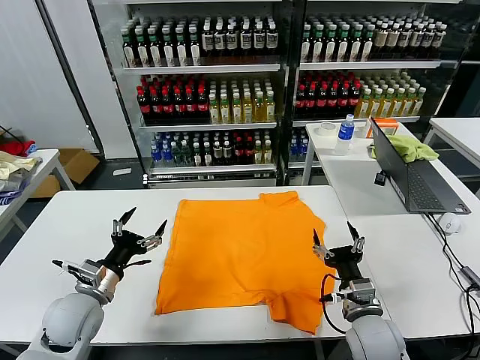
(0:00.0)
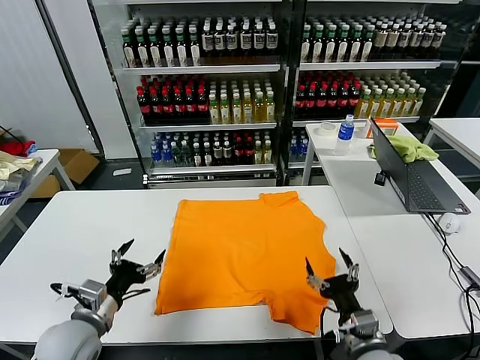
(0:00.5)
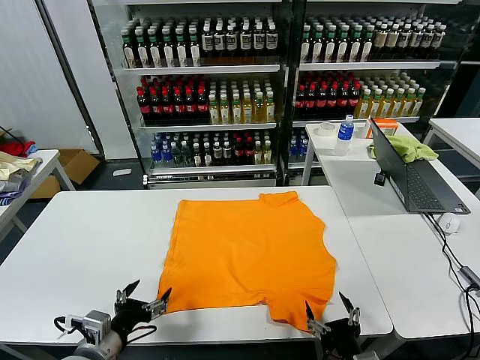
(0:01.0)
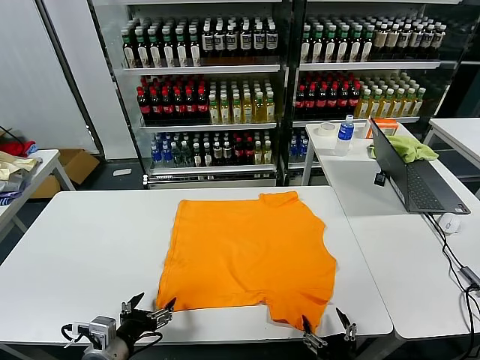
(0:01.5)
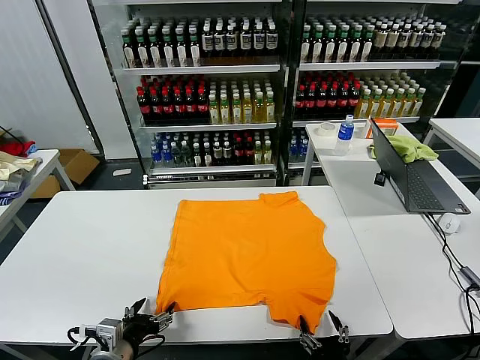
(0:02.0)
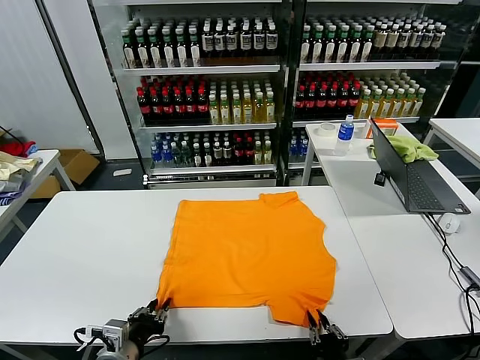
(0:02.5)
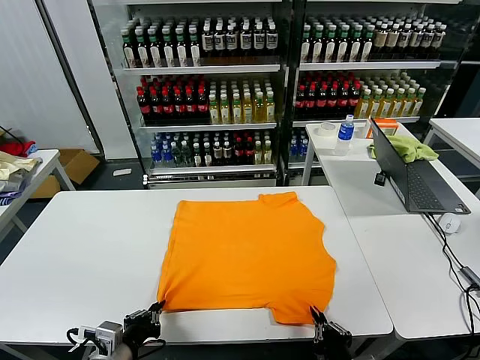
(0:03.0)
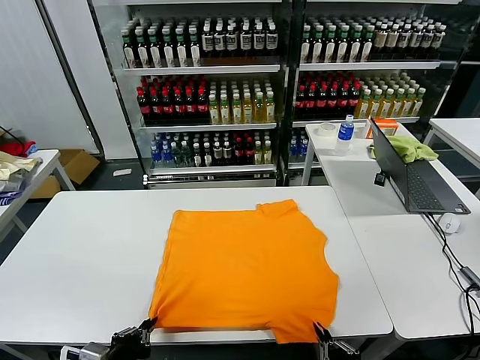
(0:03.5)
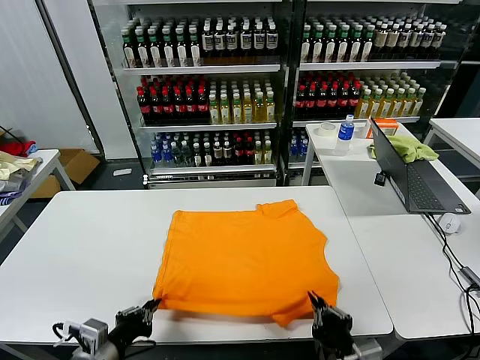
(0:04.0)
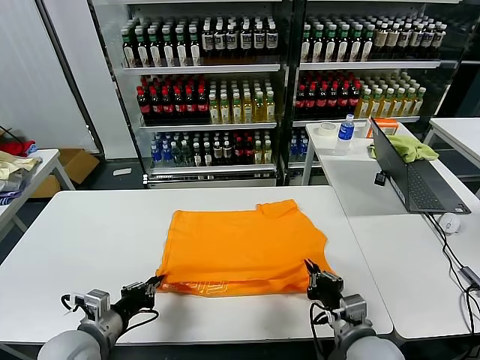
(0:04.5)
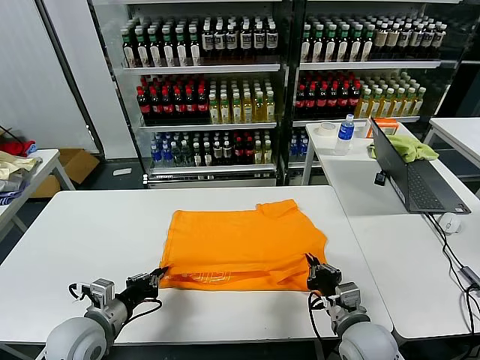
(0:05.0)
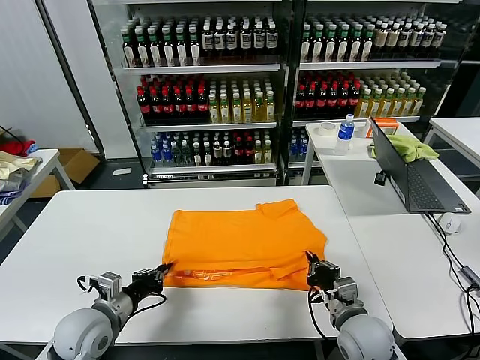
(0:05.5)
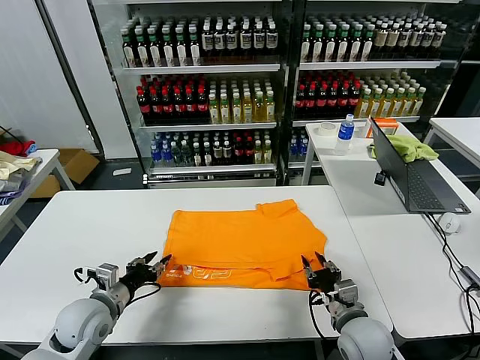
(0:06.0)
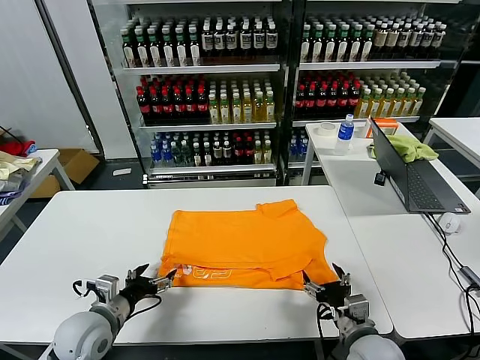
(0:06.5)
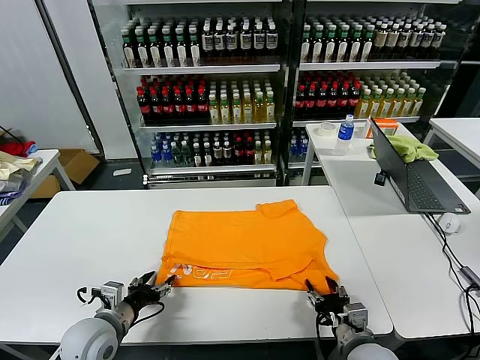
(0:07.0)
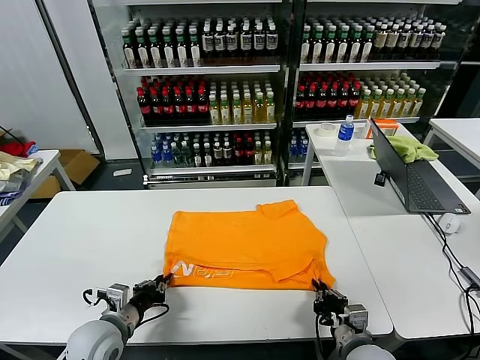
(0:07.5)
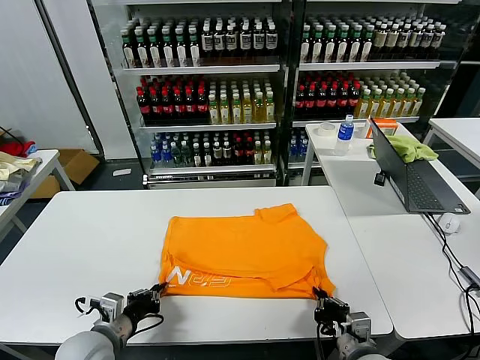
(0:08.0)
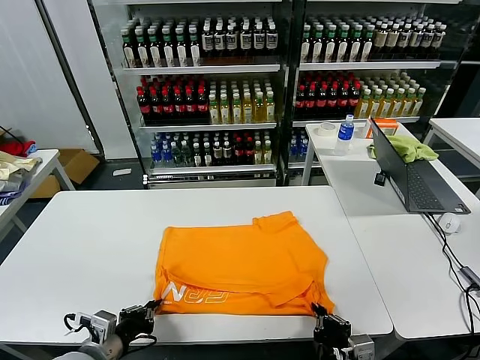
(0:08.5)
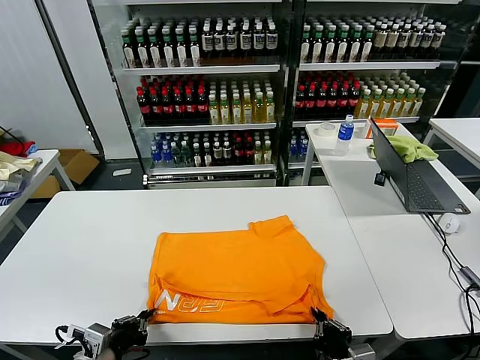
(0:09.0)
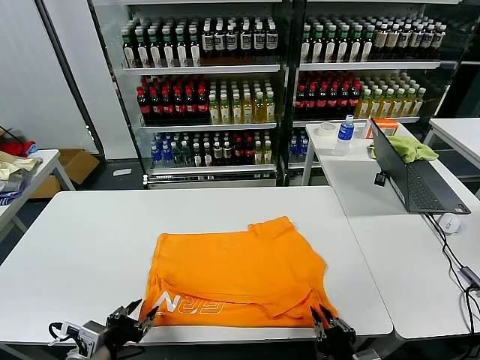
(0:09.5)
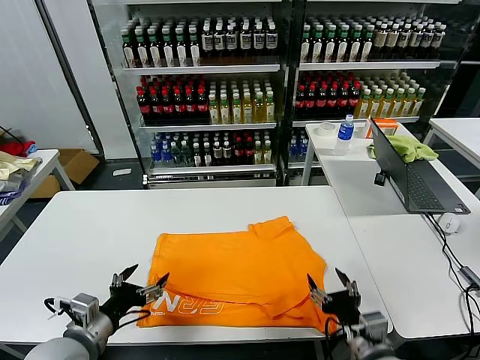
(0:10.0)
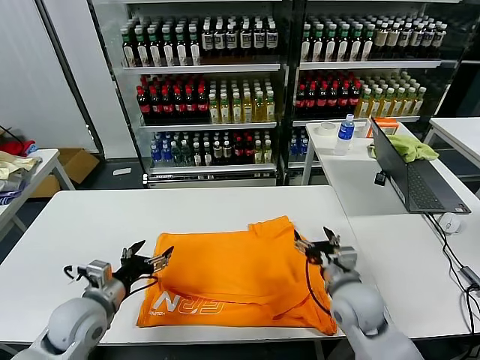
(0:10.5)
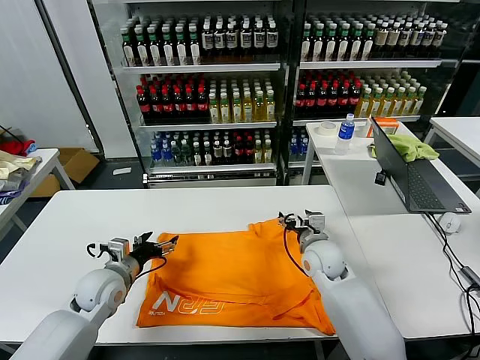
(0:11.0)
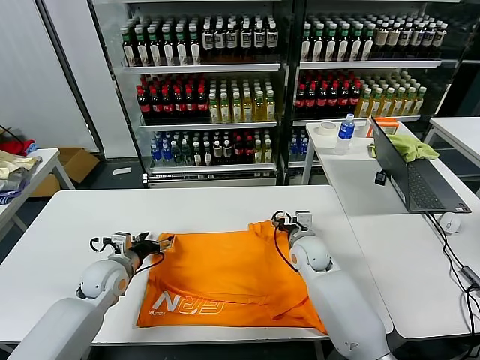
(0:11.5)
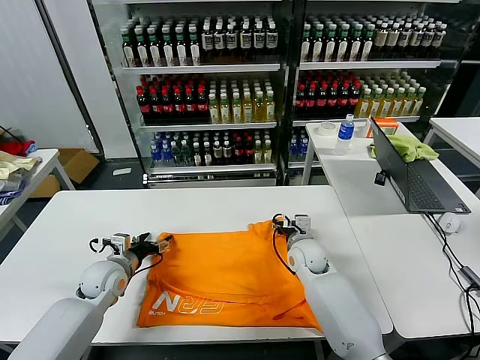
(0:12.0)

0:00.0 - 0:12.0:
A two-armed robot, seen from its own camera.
Task of the whole recording: fold and organize the clothes.
Step, 0:00.0 - 0:02.5: use both grippers simultaneously to clamp the lower edge of the clothing fabric.
Step, 0:03.0 - 0:06.0: use both grippers to drag the lower edge of the fabric forward and fold it over the upper edge.
Step, 0:06.5 - 0:09.5: Drag the clothes downward with both gripper.
0:02.0 - 0:04.0: The right gripper moves upward, approximately 5 cm, and closes up; the left gripper closes its fingers.
0:04.0 - 0:06.0: The two grippers go about 10 cm forward. The left gripper opens its fingers. The right gripper opens.
0:06.0 - 0:08.0: Both grippers move backward, roughly 5 cm. The right gripper closes; the left gripper closes.
0:08.0 - 0:10.0: The left gripper moves upward, about 5 cm, and opens, while the right gripper shifts by roughly 5 cm, and opens.
0:10.0 - 0:12.0: The grippers both shift forward by some 25 cm.

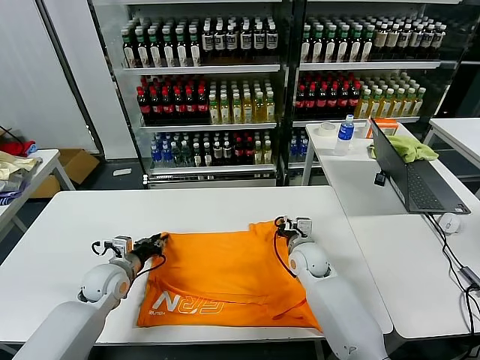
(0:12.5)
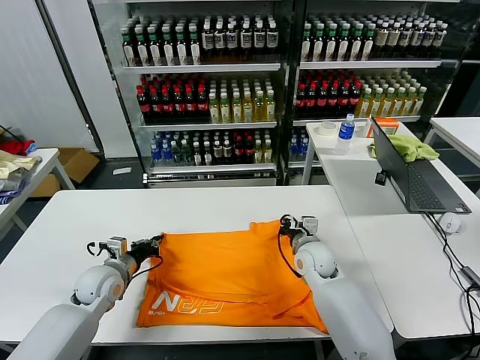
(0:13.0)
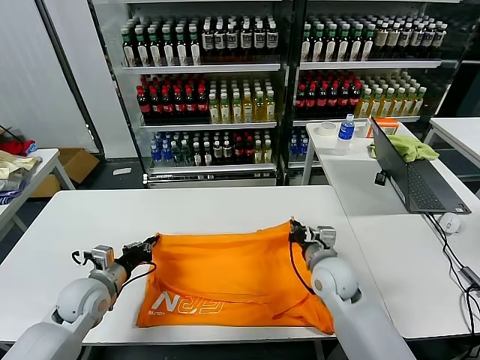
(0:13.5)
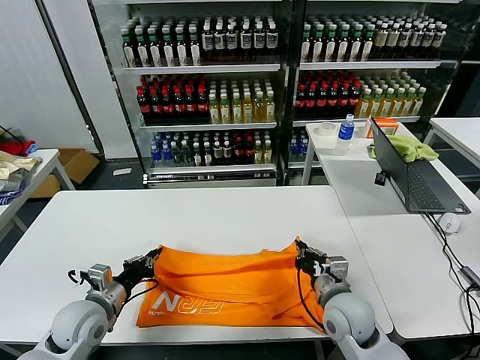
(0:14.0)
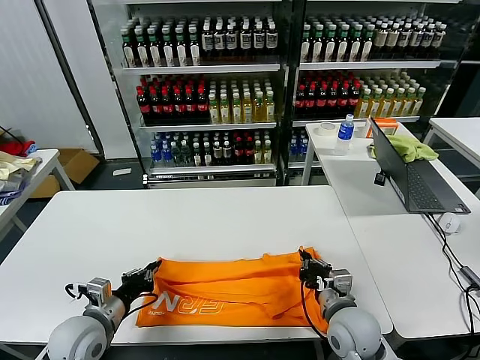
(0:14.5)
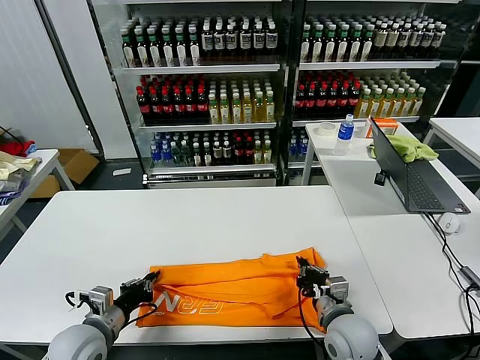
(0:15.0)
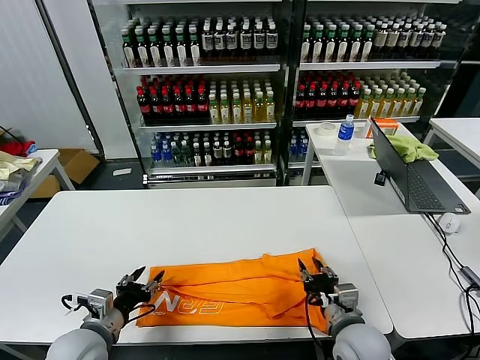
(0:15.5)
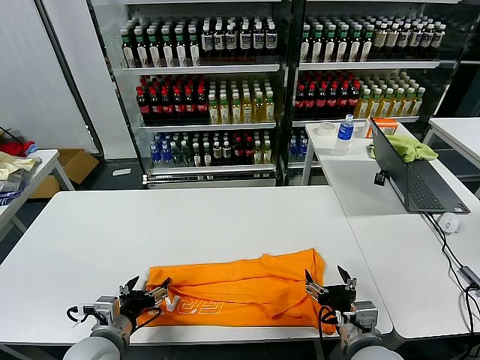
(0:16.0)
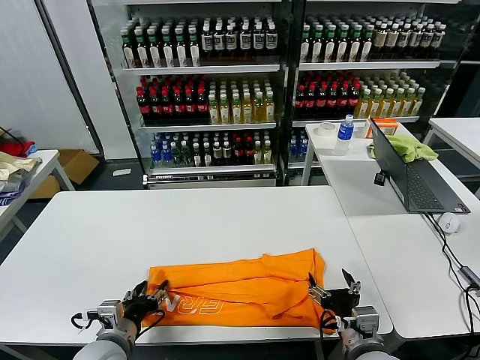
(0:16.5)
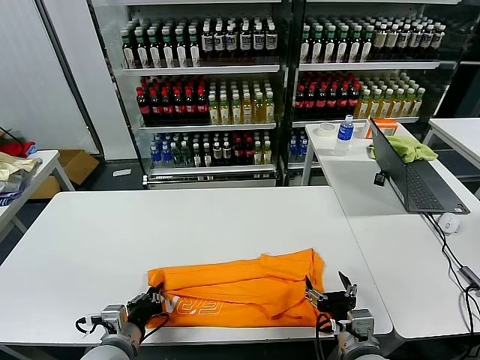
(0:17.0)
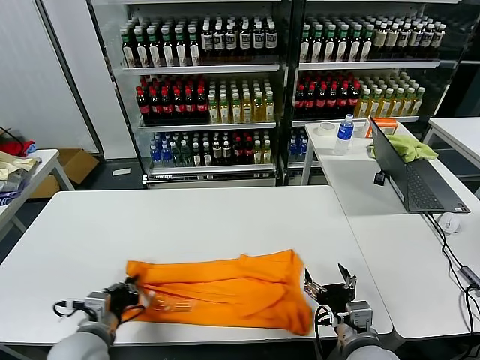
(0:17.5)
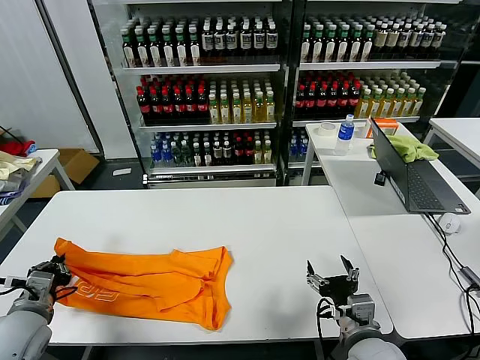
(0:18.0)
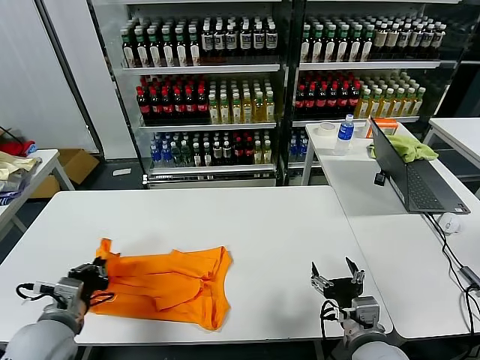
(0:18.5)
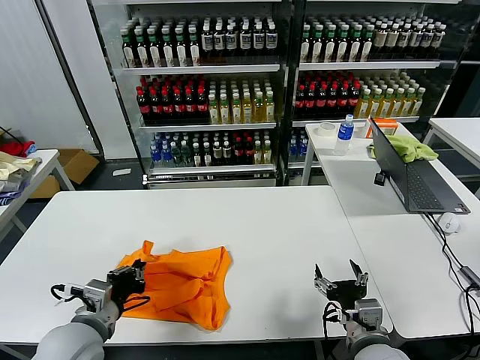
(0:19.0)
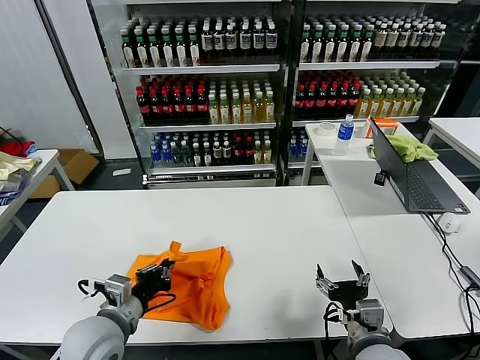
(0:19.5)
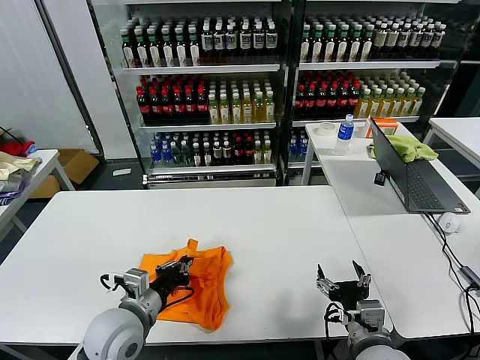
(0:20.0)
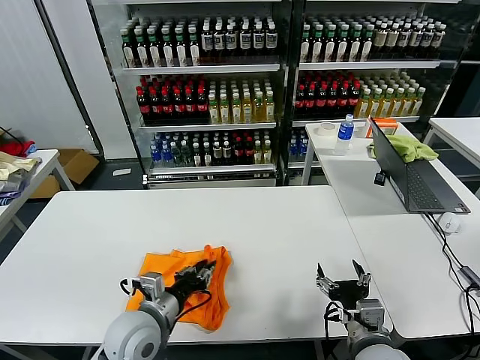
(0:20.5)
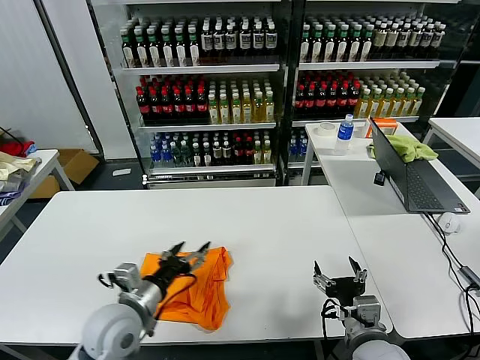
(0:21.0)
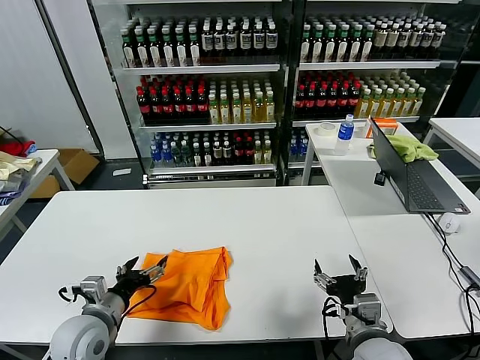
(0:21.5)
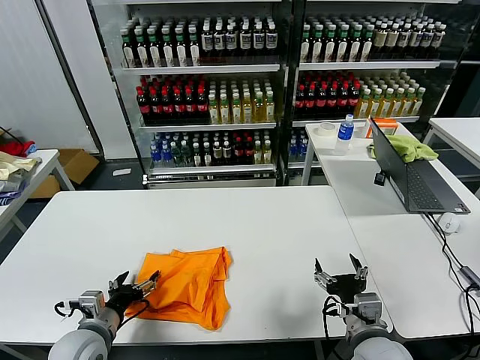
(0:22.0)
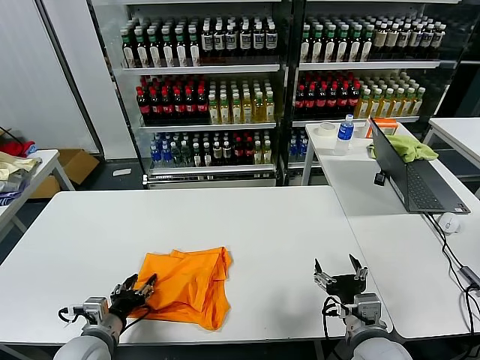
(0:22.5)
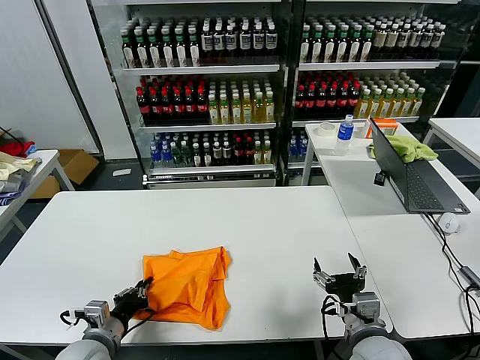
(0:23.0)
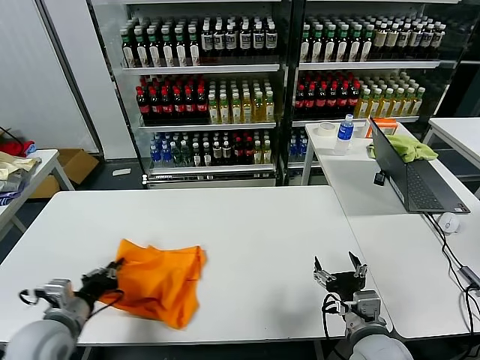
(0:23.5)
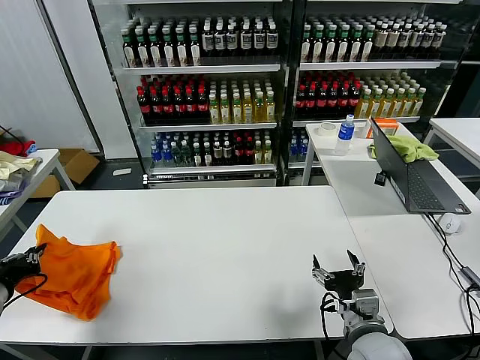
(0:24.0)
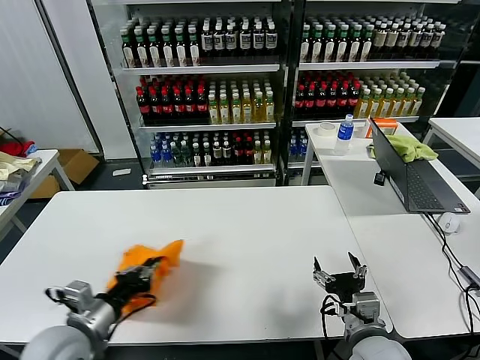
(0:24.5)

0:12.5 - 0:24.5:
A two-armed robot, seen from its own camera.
Task of the whole recording: fold and organize the clothes.
Step, 0:13.0 - 0:15.5: use both grippers to drag the upper edge of the fabric backward and fold it over the lower edge.
Step, 0:16.0 - 0:17.0: use the left gripper to clamp the left edge of the fabric.
Step, 0:17.5 - 0:20.5: use the left gripper to drag the left edge of the fabric to the left and folds it over the right edge.
0:12.5 - 0:14.5: The two grippers go some 15 cm backward.
0:14.5 - 0:16.5: The left gripper goes about 5 cm to the right, and opens, while the right gripper is displaced backward by about 10 cm, and opens up.
0:16.5 - 0:18.5: The left gripper travels upward and to the left by approximately 10 cm, and closes.
0:18.5 - 0:20.5: The left gripper goes about 15 cm to the right.
0:20.5 - 0:22.5: The left gripper goes about 15 cm to the left and downward, and opens.
0:22.5 - 0:24.5: The left gripper moves upward, about 10 cm, goes to the left and returns, some 15 cm each way, and closes up.

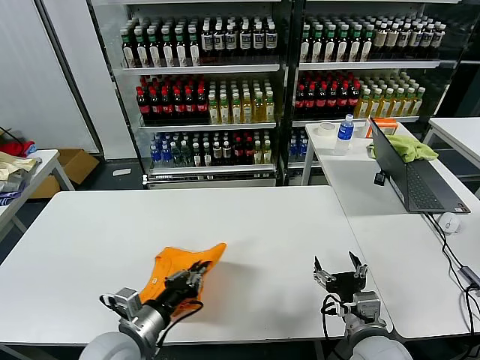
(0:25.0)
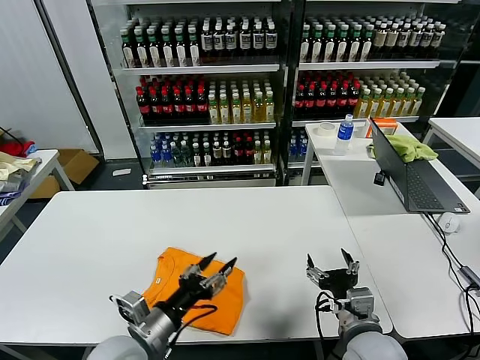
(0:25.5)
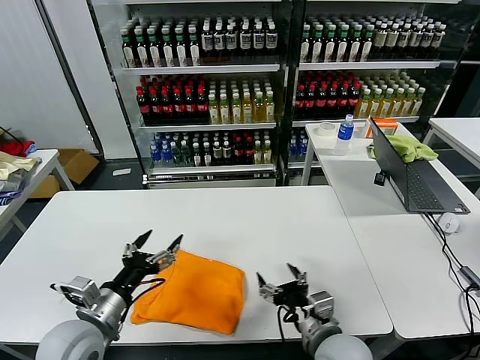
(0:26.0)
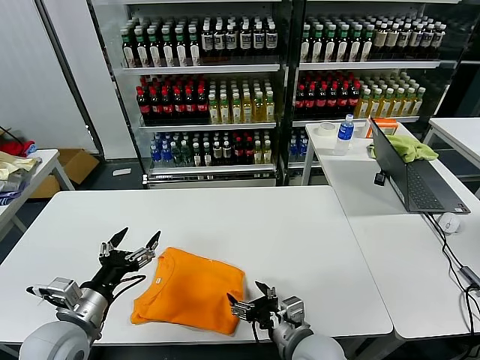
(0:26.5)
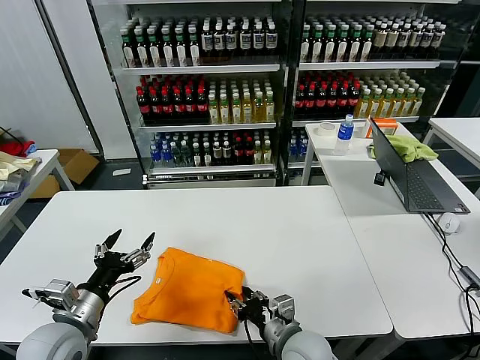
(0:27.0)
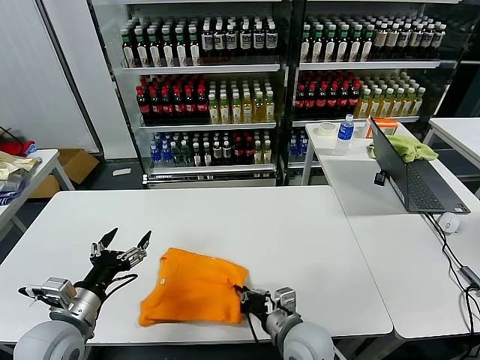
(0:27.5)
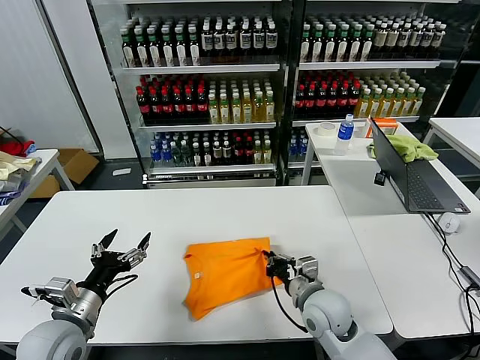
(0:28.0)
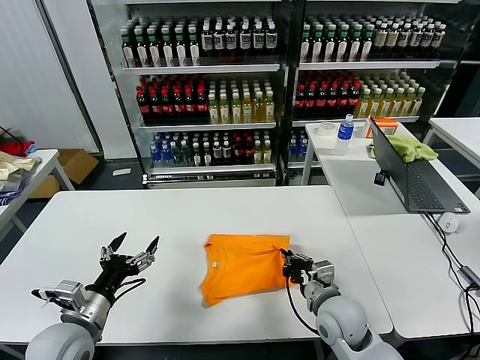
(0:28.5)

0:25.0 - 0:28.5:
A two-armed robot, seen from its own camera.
Task of the whole recording: fold and organize the clothes.
0:25.0 - 0:27.0: The left gripper goes about 10 cm to the left, and opens, while the right gripper is displaced to the left and downward by some 10 cm, and closes.
0:27.0 - 0:28.5: The right gripper moves to the right and forward, roughly 10 cm, and closes.
